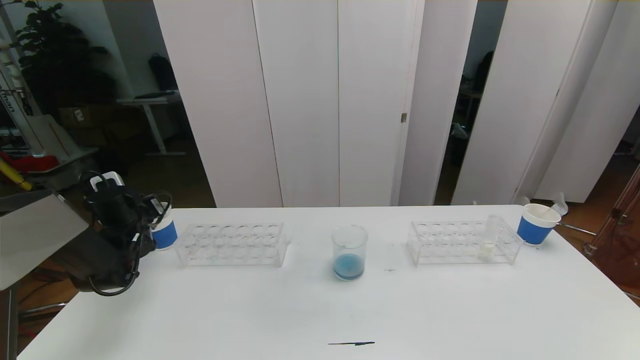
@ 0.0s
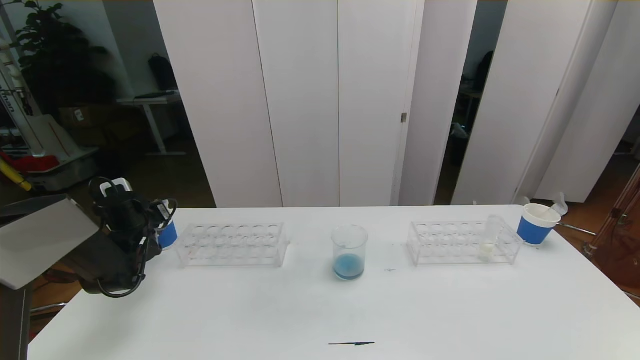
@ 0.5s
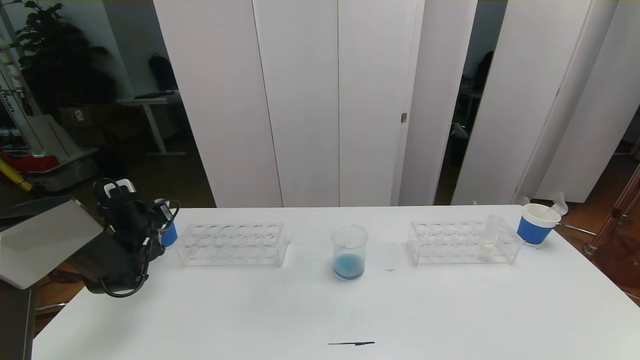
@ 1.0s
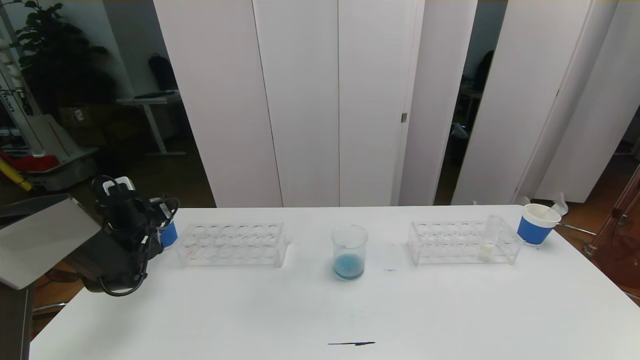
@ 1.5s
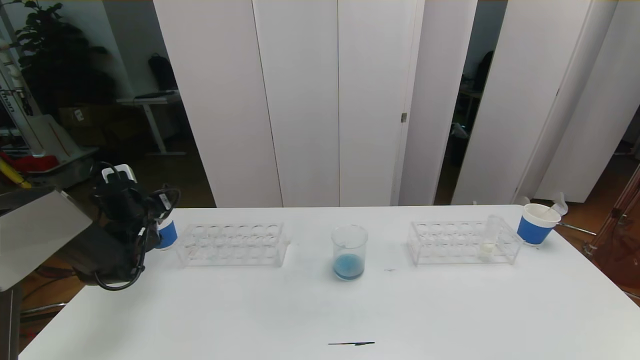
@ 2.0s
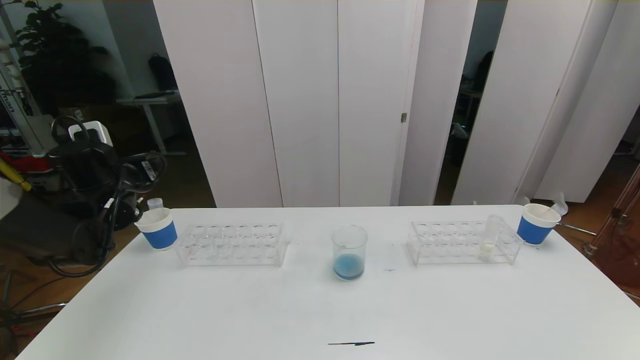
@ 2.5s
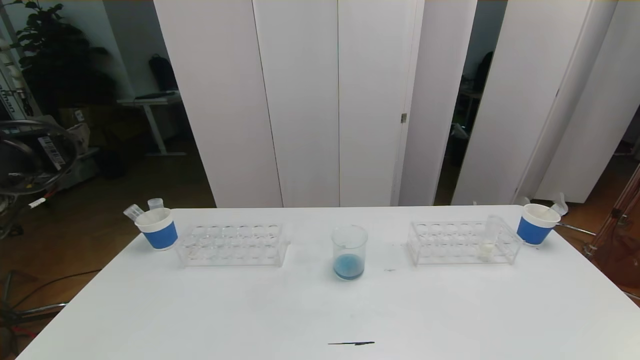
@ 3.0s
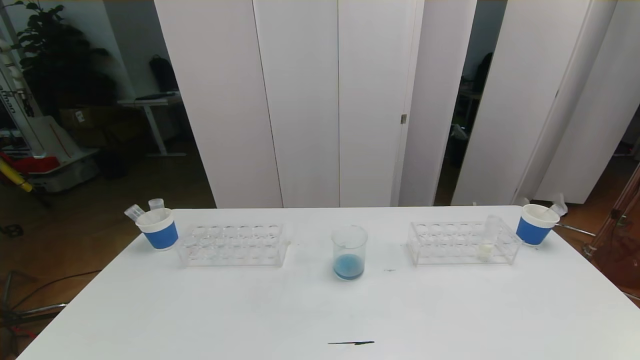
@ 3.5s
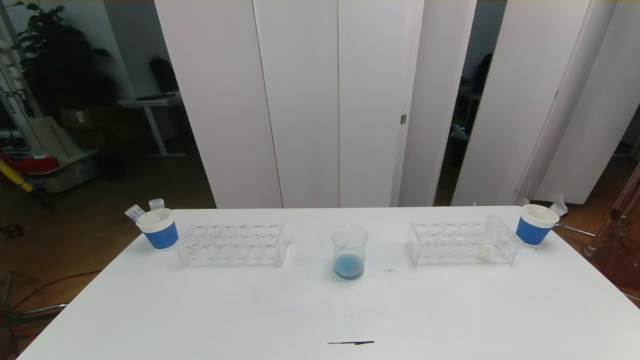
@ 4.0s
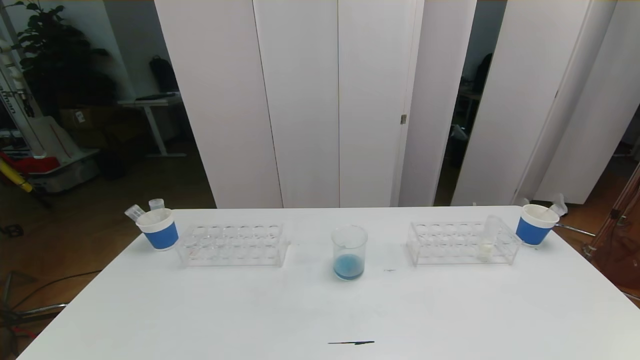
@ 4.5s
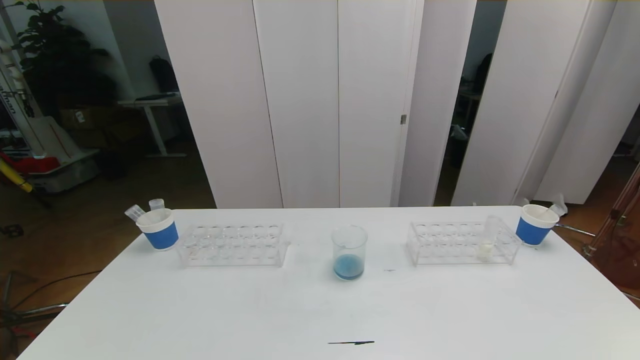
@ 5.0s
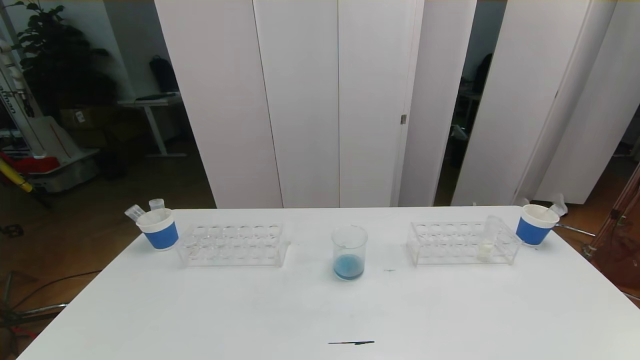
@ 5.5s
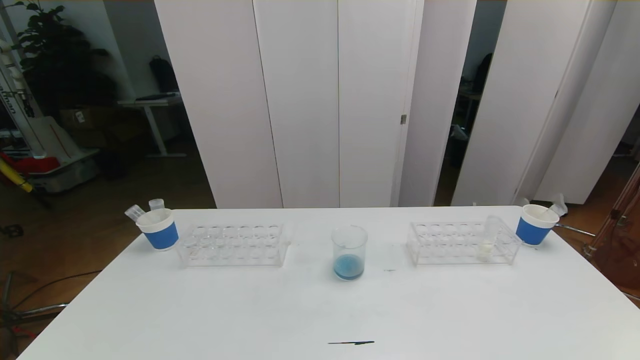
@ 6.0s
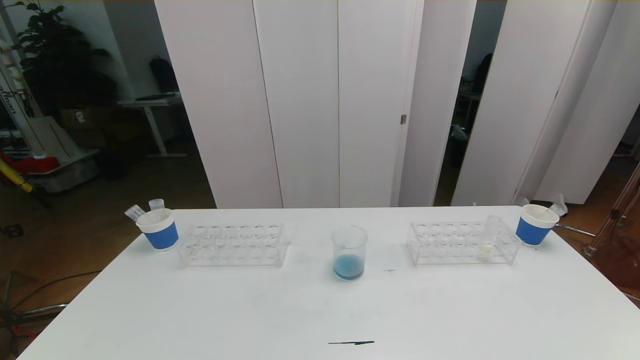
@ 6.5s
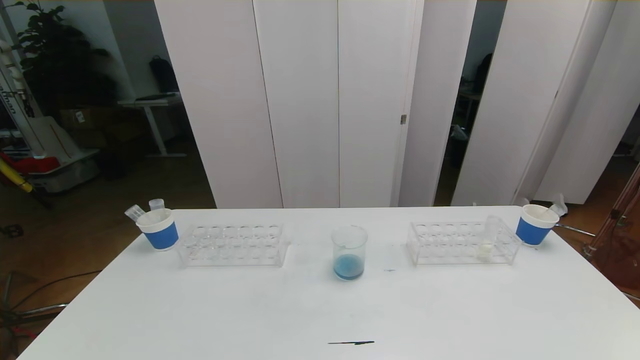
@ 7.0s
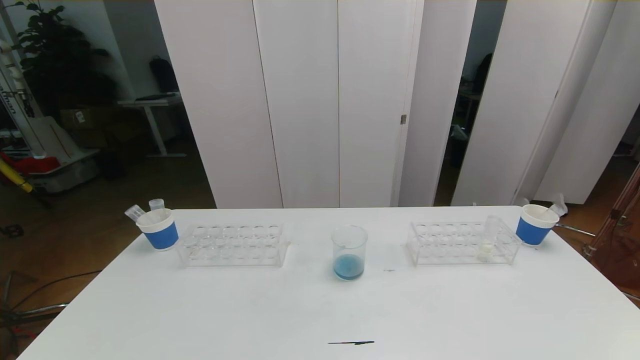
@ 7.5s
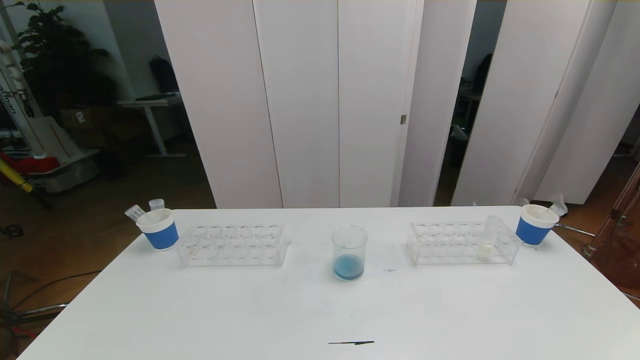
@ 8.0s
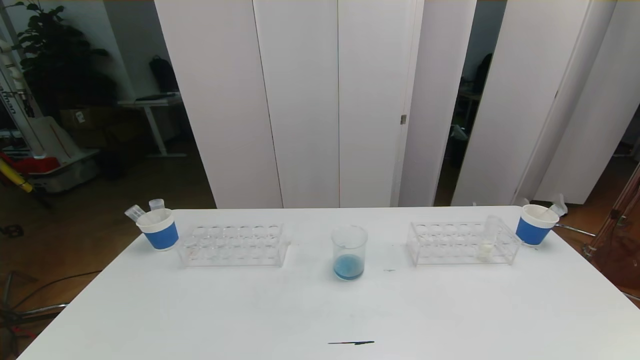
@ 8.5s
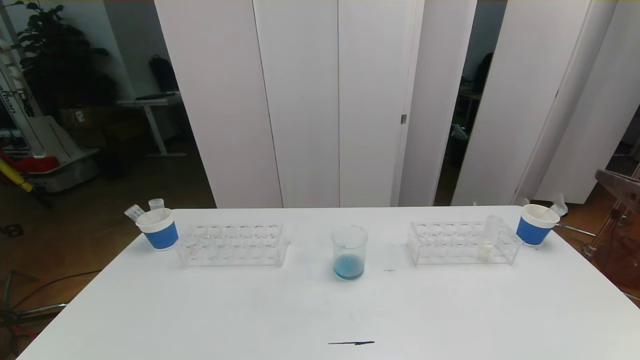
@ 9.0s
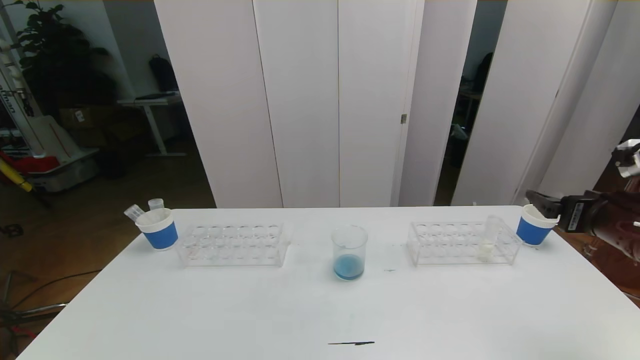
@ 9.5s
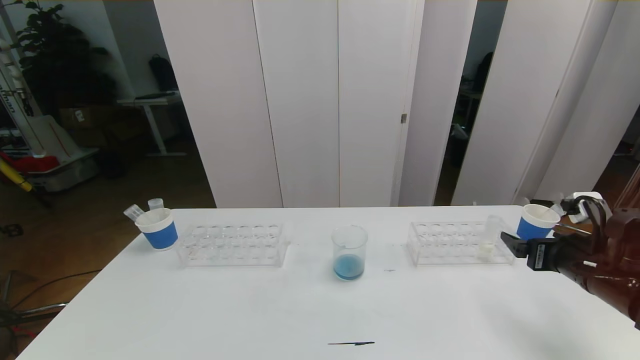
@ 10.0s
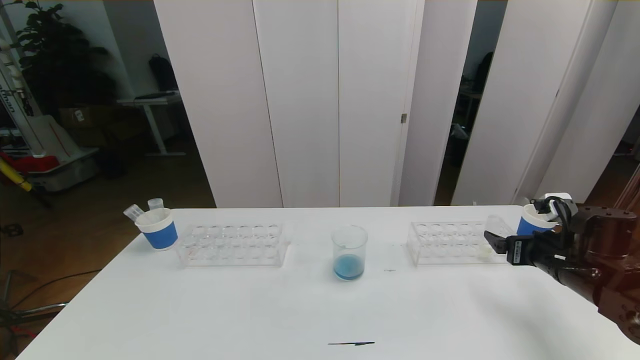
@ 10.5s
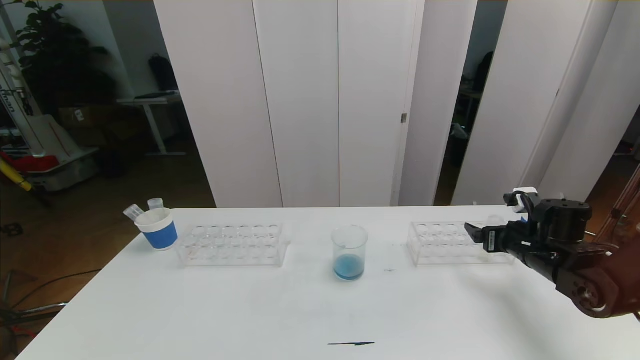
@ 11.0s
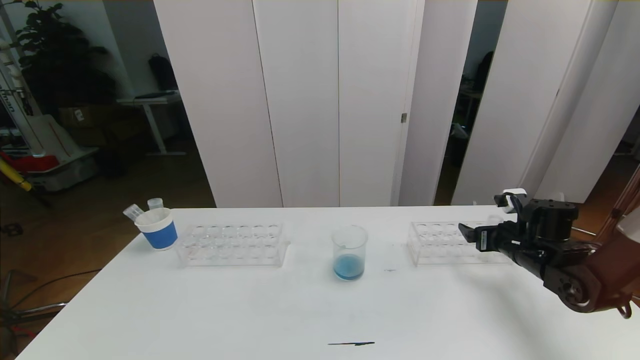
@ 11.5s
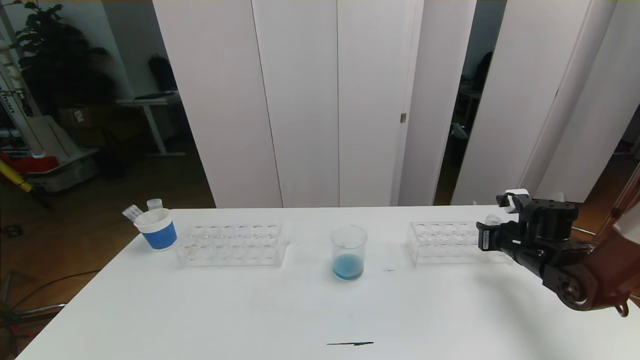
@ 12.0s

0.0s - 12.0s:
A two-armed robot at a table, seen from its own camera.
Task of the whole recording: pick up the test tube with red pigment the test tube with blue pigment and the test tube with white pigment by grippers and pour them into the beaker.
Step, 0.0s - 6.0s: Pour the orange reagent into the graduated cylinder and place the test tube into the paper cup.
0.0s - 2.0s: The left gripper opens up.
2.0s - 4.0s: The left gripper travels backward by about 50 cm.
8.0s - 10.0s: The right gripper travels forward by about 30 cm.
10.0s - 12.0s: The right gripper heads forward and downward, covering approximately 10 cm, and closes its fingers.

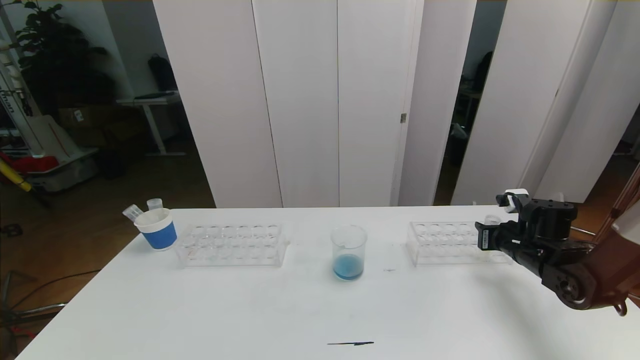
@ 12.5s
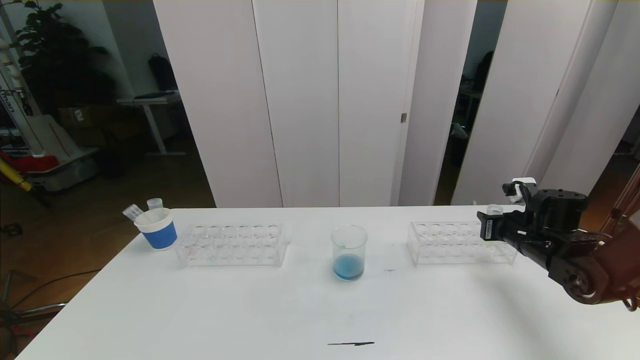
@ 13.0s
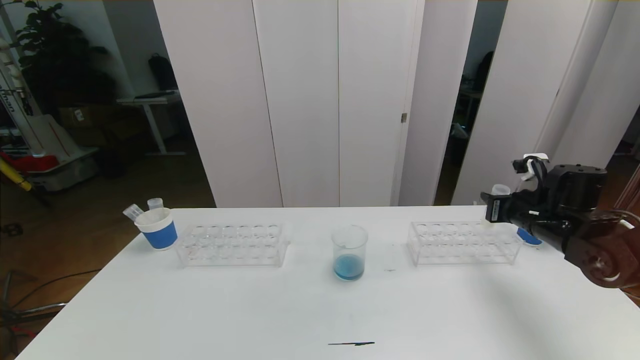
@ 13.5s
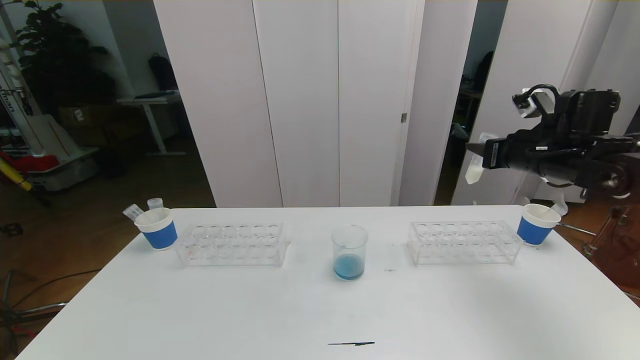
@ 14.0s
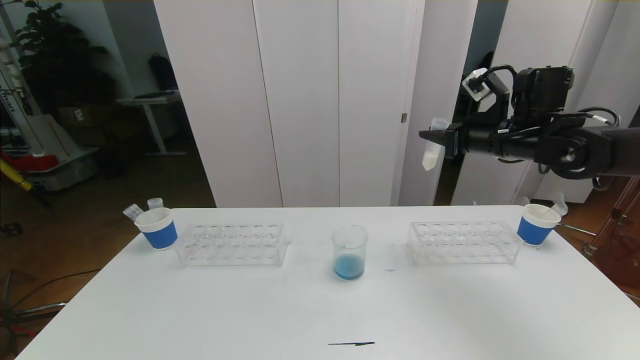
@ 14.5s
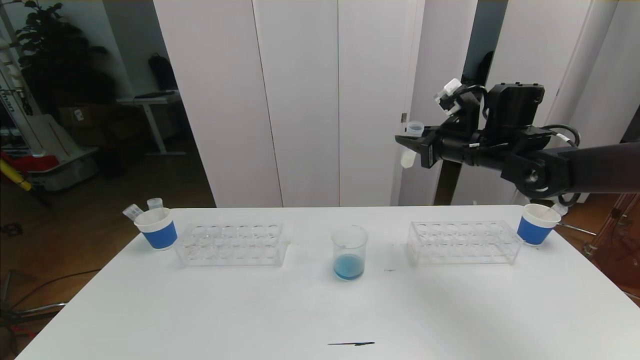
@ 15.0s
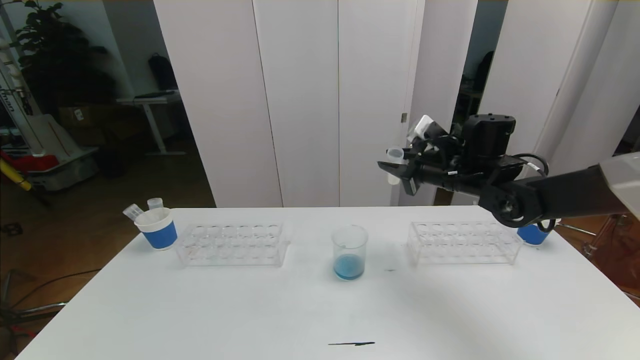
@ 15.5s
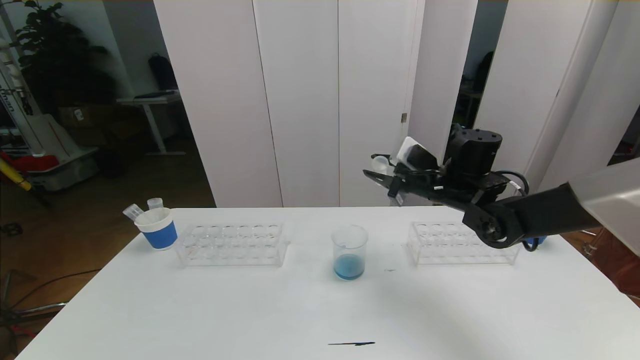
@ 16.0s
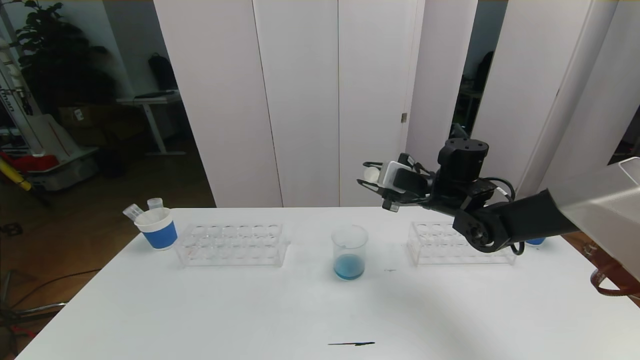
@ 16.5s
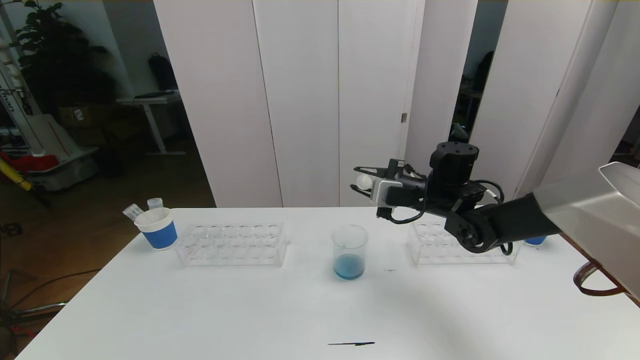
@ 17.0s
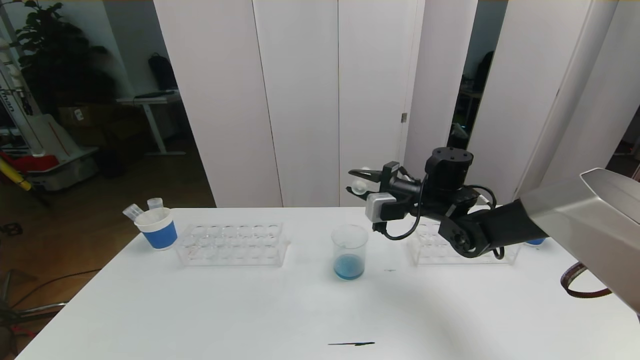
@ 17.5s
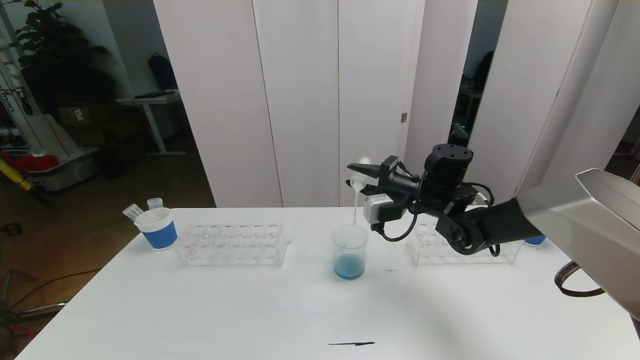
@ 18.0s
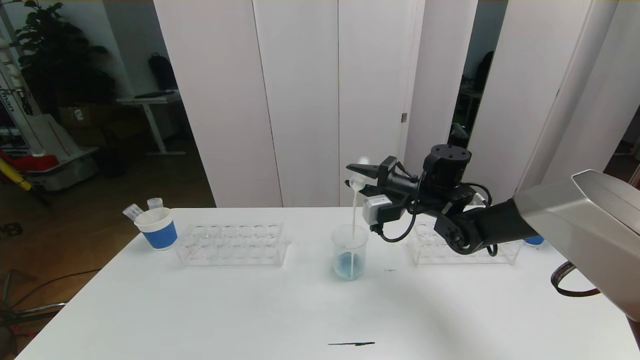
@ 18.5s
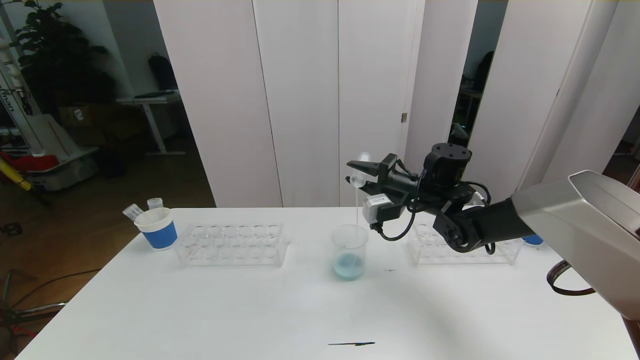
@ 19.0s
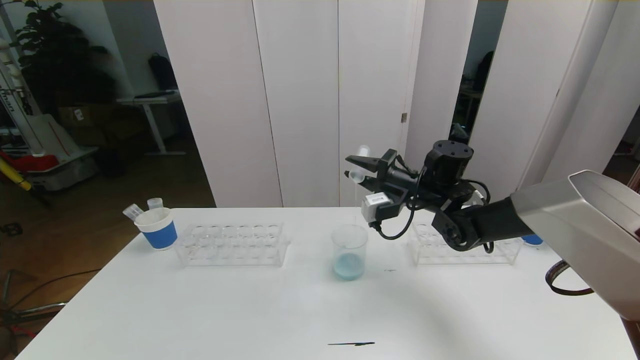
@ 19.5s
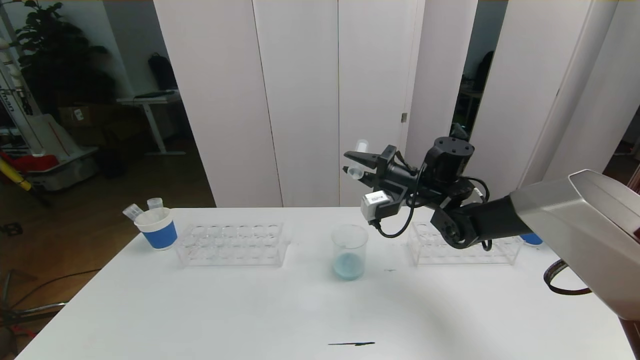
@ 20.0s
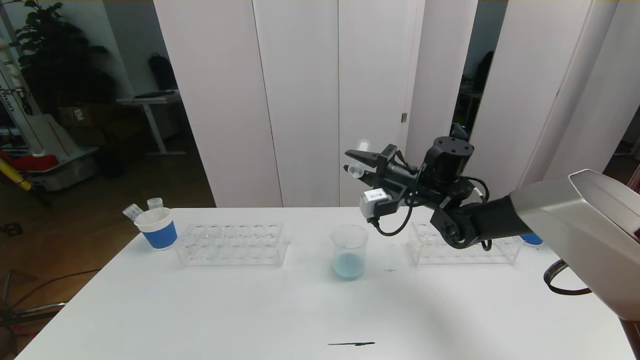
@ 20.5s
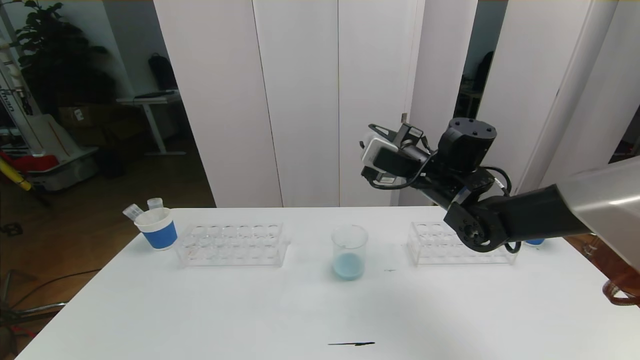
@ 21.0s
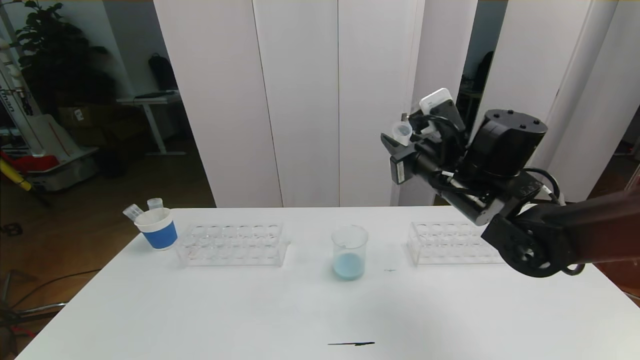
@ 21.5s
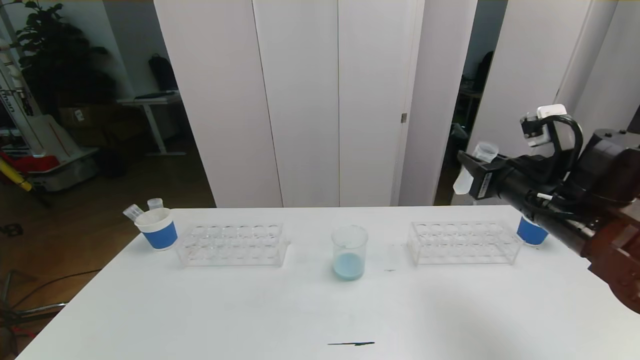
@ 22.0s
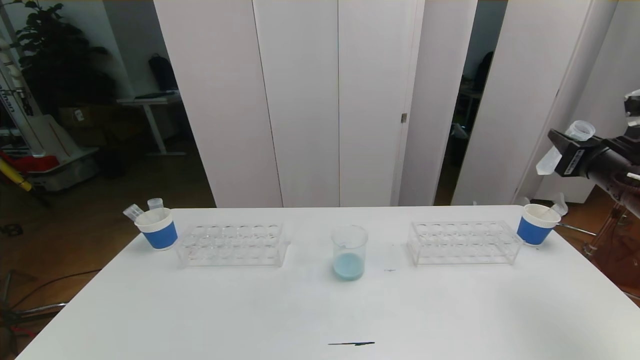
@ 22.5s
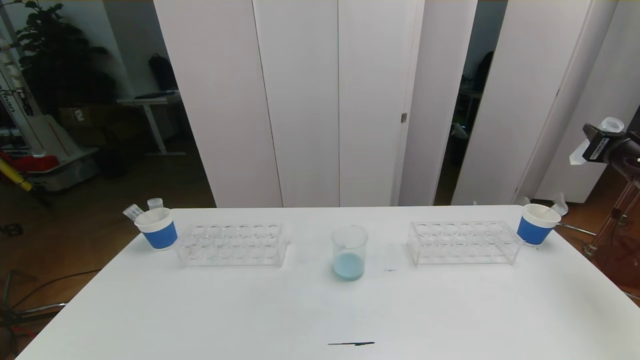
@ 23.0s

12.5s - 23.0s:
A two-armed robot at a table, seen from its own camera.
Task of the whole recording: pick up the test tube with red pigment the test tube with blue pigment and the test tube with white pigment by grippers and pour them into the beaker.
12.5s - 14.5s: The right gripper is displaced upward by approximately 20 cm.
14.5s - 16.5s: The right gripper shifts some 15 cm to the left and downward.
19.0s - 21.0s: The right gripper shifts some 5 cm upward.
21.0s - 23.0s: The right gripper is displaced to the right by approximately 30 cm.
